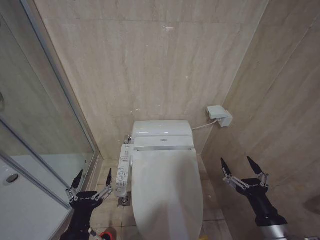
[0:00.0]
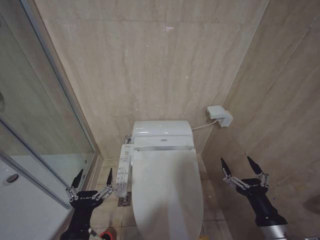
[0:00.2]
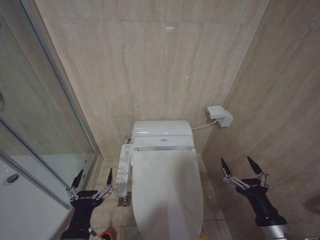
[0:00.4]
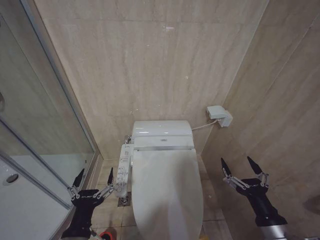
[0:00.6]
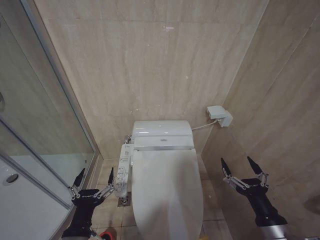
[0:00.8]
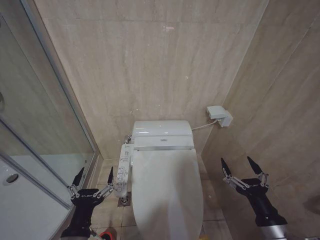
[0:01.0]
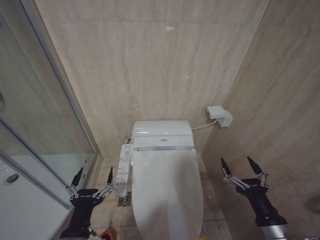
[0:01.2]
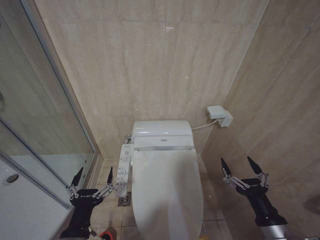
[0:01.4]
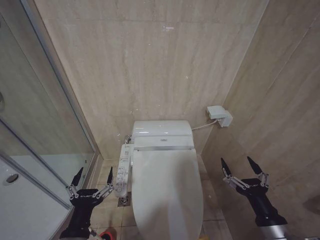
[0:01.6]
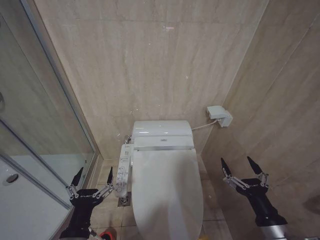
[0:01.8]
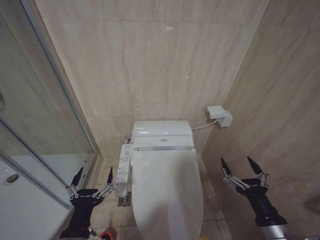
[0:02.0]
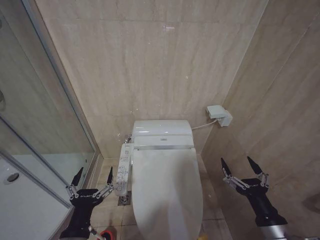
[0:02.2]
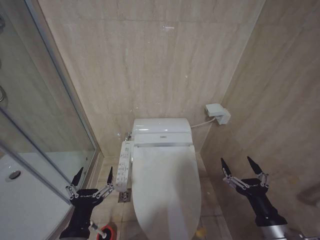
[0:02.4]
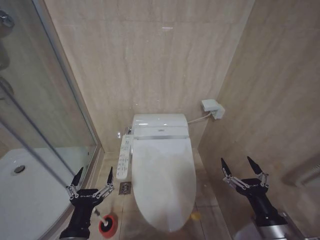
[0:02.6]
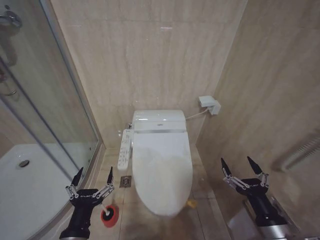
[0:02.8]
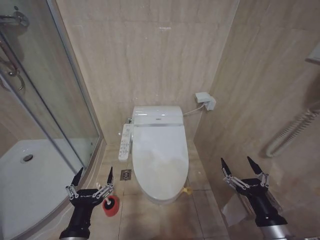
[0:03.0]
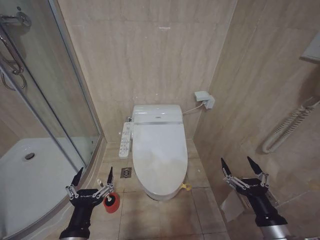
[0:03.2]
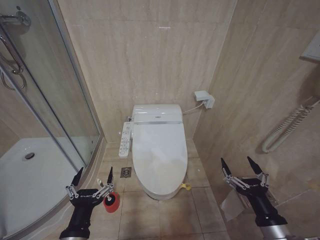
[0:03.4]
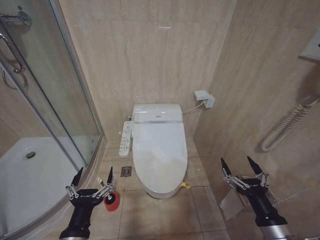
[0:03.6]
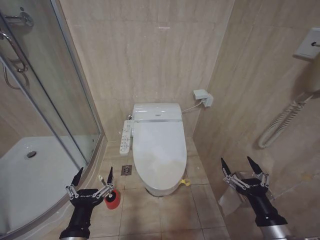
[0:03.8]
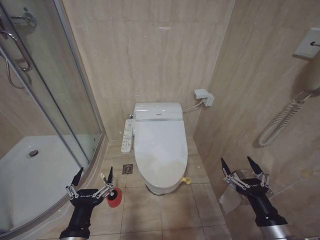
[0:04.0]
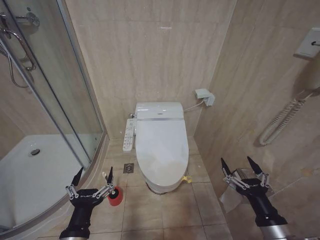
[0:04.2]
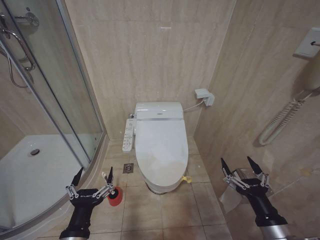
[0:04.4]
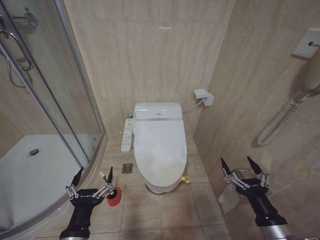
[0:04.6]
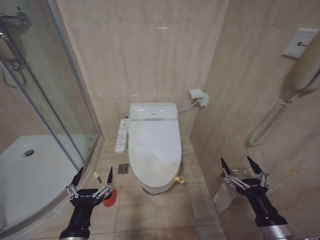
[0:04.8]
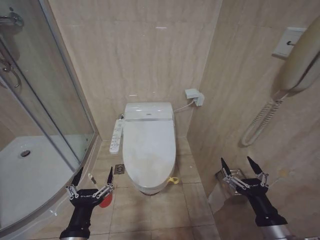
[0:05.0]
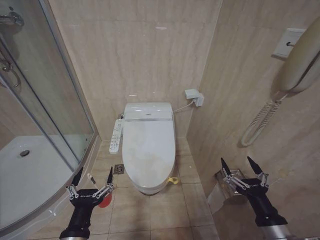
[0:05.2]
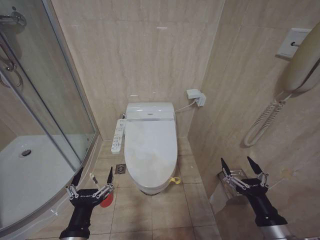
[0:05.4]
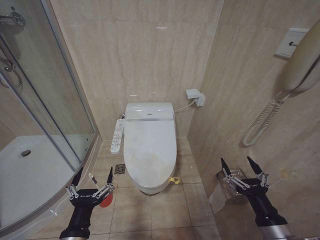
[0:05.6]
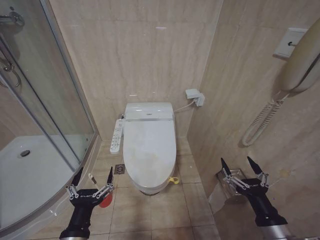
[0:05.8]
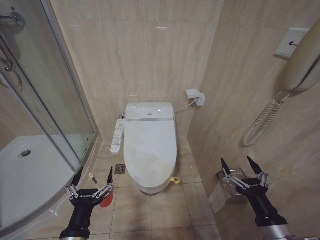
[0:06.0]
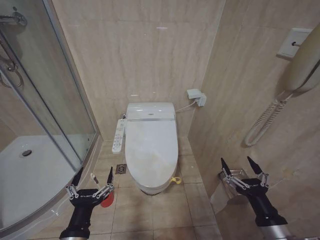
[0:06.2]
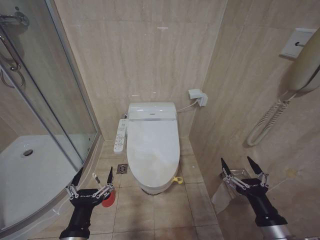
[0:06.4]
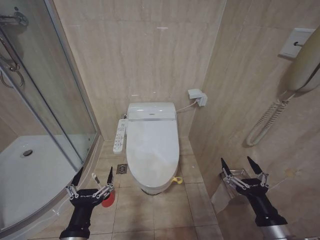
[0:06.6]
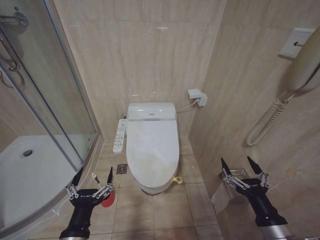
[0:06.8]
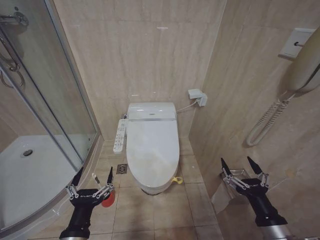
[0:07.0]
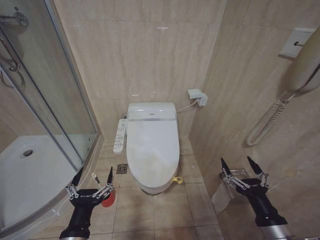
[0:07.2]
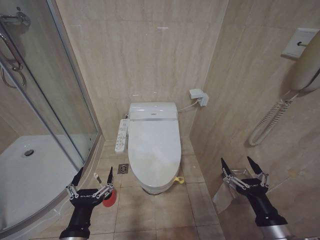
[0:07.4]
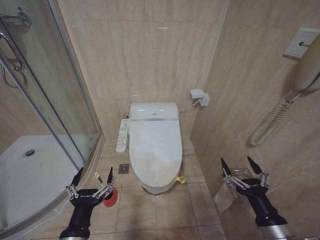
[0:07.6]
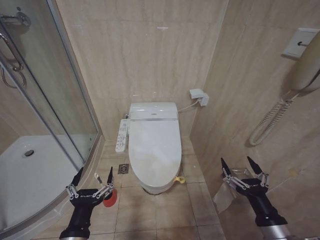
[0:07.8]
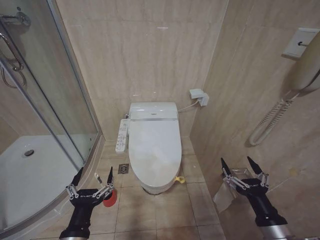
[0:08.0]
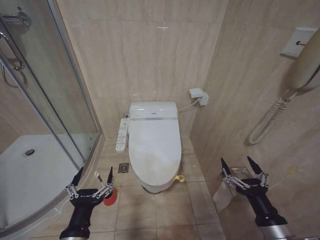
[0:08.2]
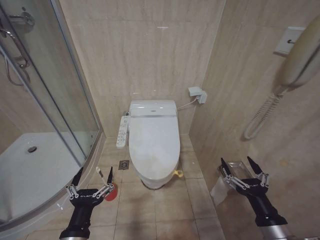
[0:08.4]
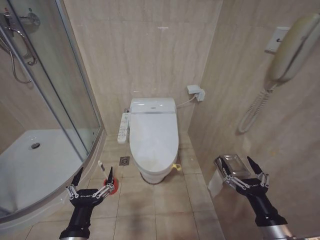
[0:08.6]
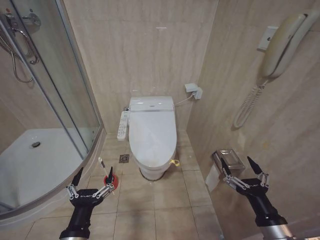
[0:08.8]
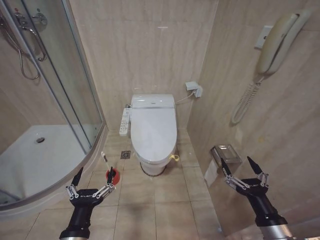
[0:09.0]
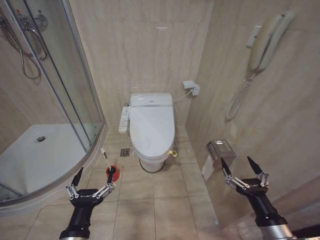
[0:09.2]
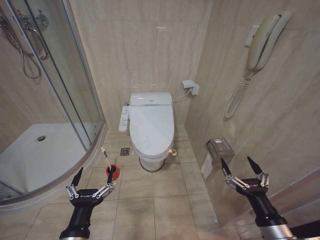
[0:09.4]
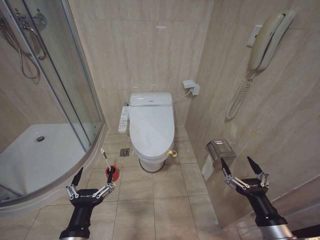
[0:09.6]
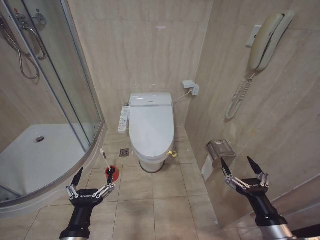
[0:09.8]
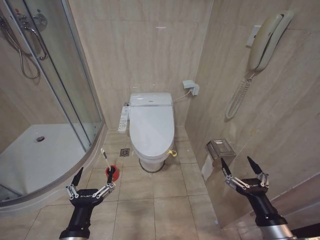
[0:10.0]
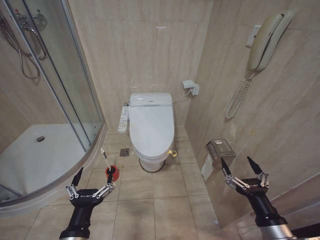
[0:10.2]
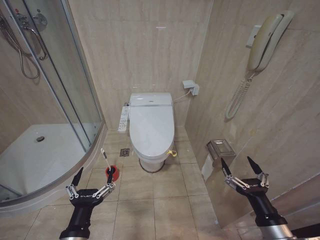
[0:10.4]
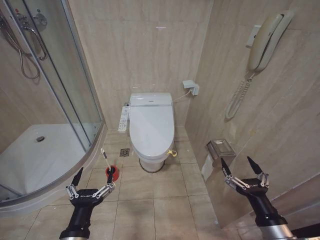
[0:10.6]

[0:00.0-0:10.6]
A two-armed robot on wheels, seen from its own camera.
Task of the whole recording: Open the toilet lid, clean the toilet bowl with a toilet brush, close the toilet lid, and flush.
0:00.0 to 0:10.6: The two grippers keep their place.
